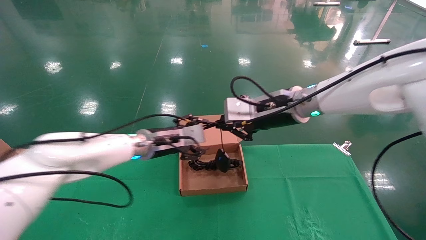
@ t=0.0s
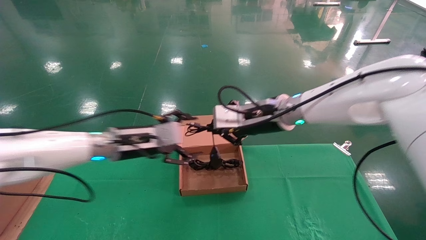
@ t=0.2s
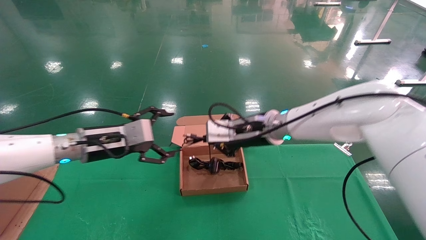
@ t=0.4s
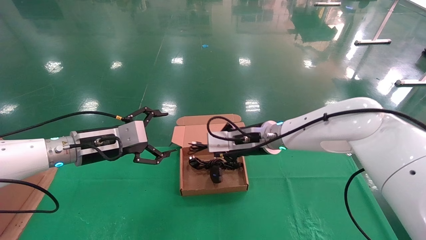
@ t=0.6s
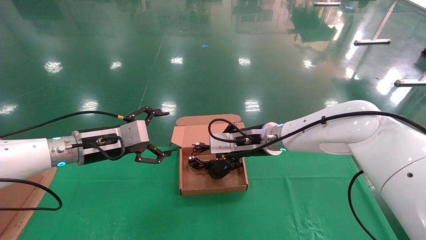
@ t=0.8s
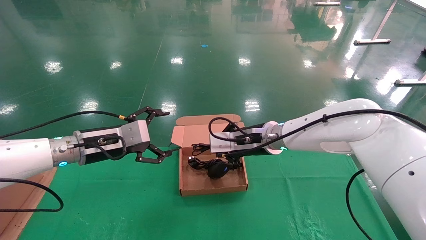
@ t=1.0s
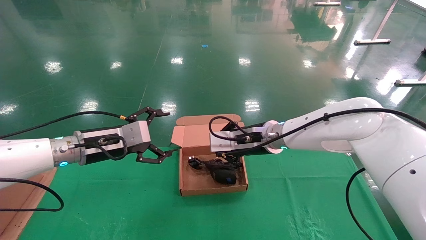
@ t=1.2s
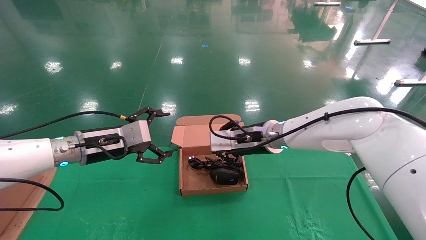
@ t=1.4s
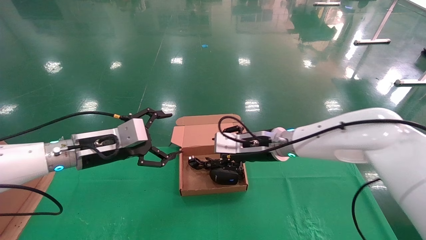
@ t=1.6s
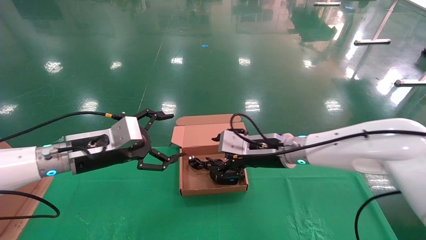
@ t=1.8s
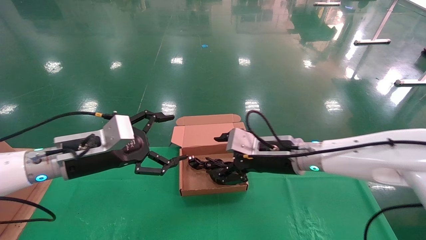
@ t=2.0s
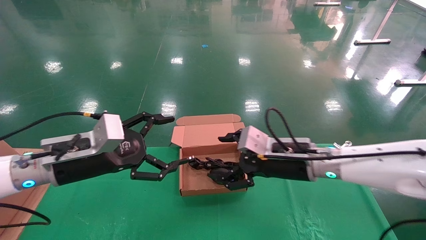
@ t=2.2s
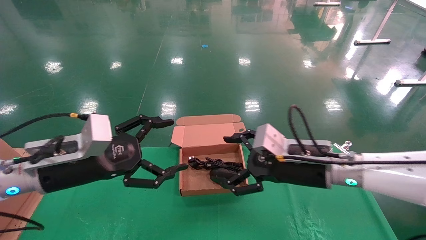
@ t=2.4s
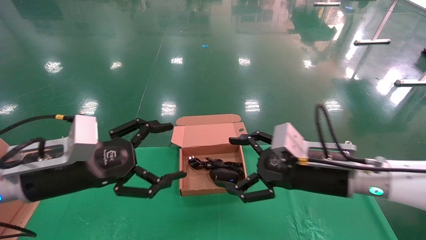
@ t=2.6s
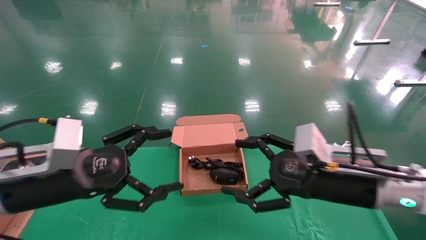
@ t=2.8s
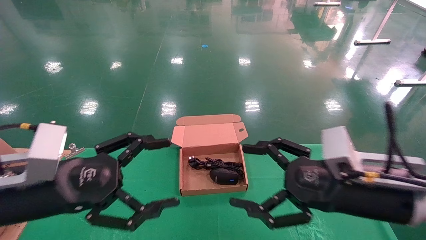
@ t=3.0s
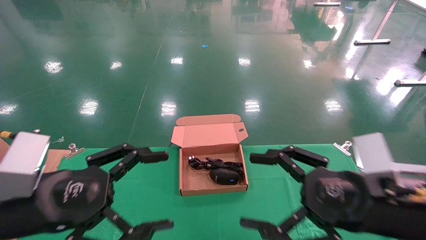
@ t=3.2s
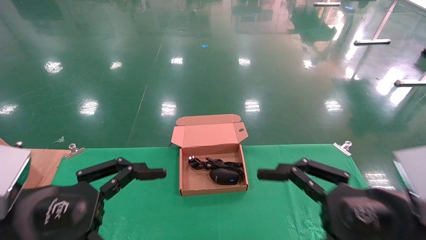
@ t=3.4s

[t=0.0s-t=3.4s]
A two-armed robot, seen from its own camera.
Step, t=0.0s to t=2.0s: Place the mouse and power cord into the box.
t=0.0s to t=1.6s: The right gripper moves downward, about 10 cm, and opens. Meanwhile the left gripper shifts approximately 10 cm to the left and backward.
t=1.6s to t=3.4s: The left gripper goes approximately 20 cm backward; the right gripper heads backward and to the right, covering some 25 cm, and opens up.
